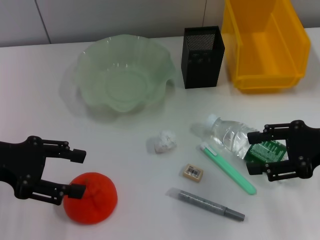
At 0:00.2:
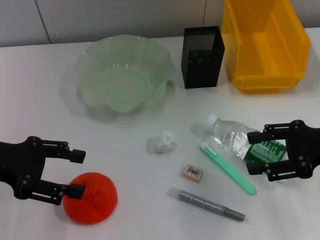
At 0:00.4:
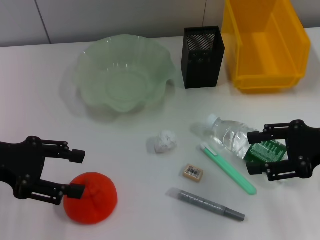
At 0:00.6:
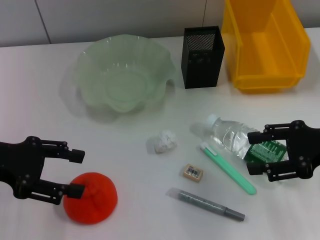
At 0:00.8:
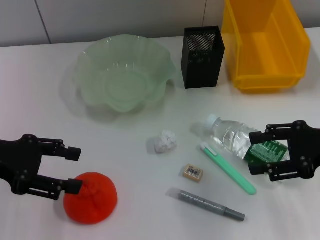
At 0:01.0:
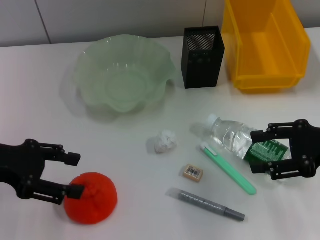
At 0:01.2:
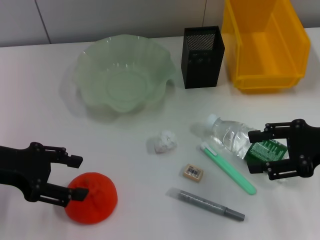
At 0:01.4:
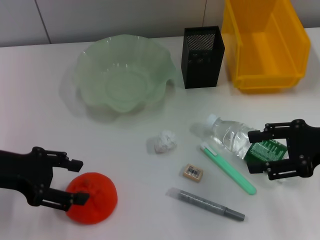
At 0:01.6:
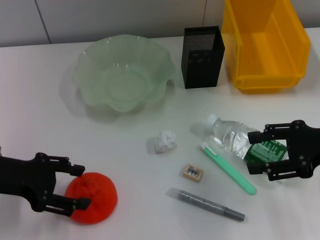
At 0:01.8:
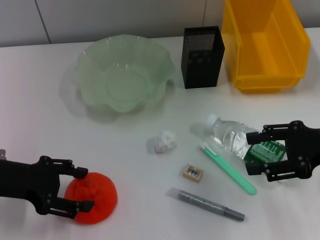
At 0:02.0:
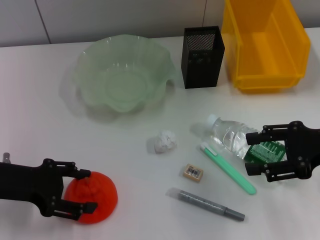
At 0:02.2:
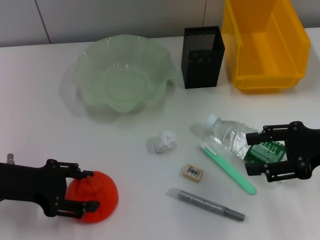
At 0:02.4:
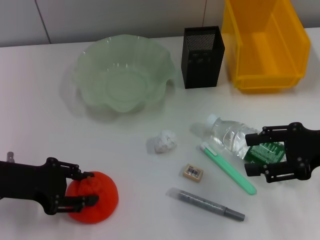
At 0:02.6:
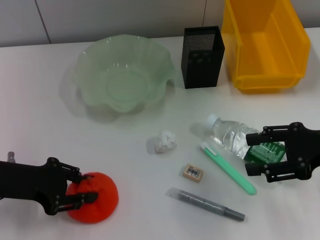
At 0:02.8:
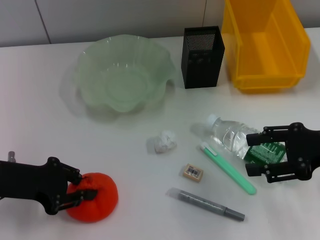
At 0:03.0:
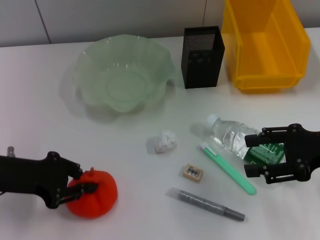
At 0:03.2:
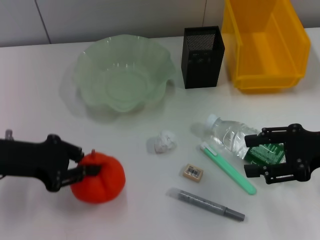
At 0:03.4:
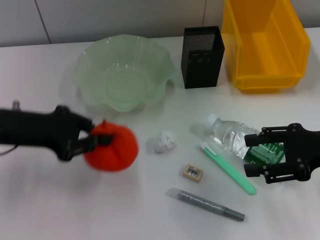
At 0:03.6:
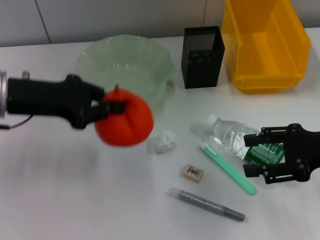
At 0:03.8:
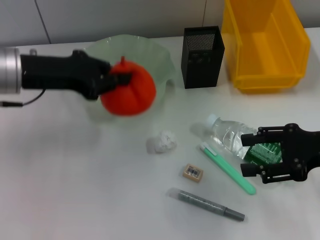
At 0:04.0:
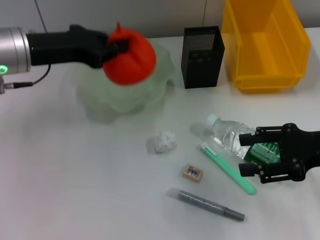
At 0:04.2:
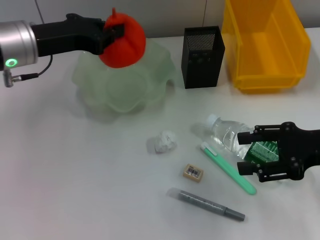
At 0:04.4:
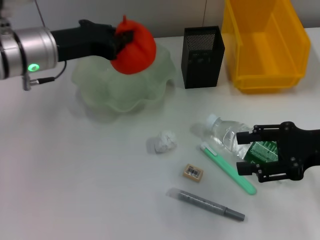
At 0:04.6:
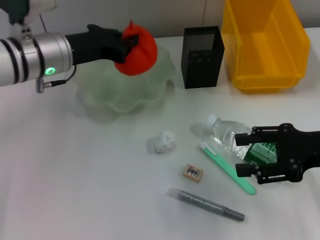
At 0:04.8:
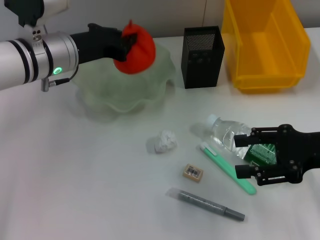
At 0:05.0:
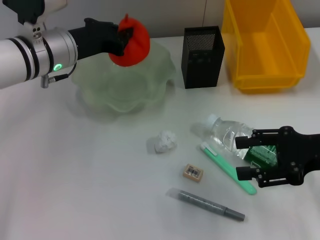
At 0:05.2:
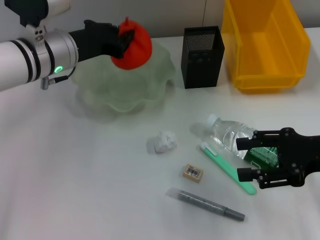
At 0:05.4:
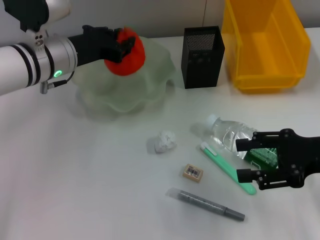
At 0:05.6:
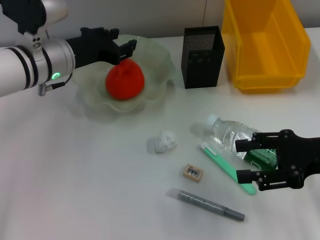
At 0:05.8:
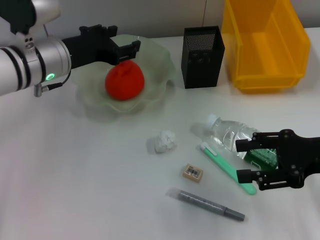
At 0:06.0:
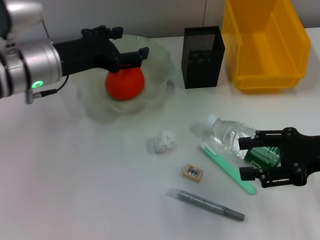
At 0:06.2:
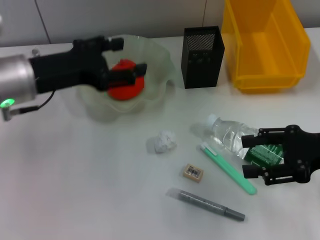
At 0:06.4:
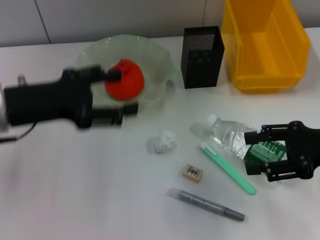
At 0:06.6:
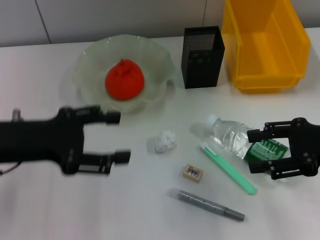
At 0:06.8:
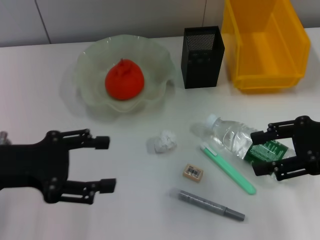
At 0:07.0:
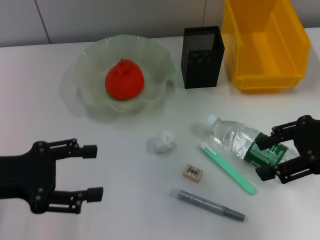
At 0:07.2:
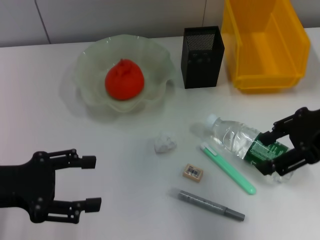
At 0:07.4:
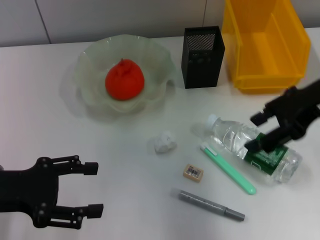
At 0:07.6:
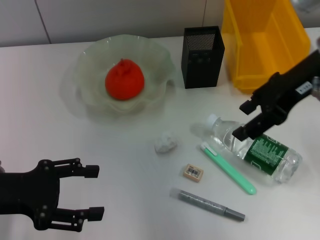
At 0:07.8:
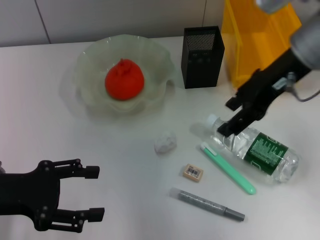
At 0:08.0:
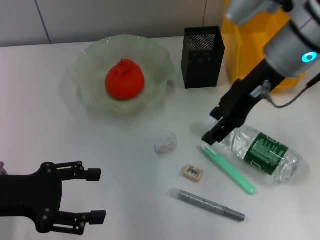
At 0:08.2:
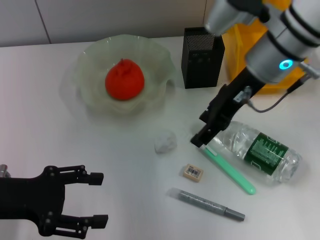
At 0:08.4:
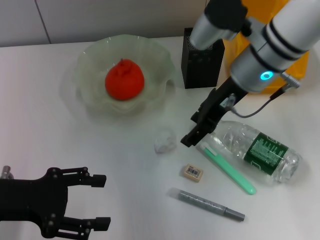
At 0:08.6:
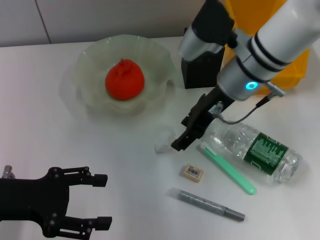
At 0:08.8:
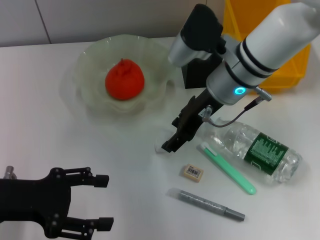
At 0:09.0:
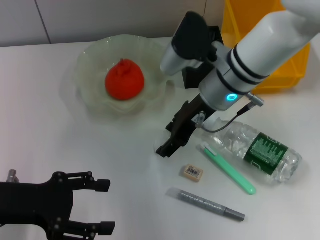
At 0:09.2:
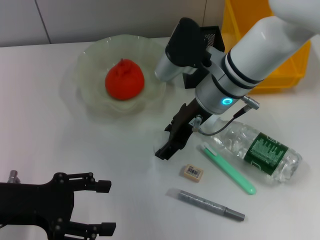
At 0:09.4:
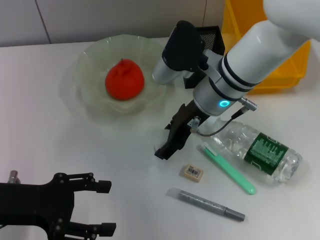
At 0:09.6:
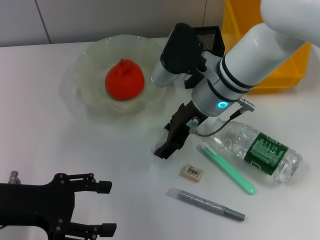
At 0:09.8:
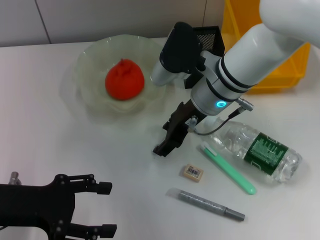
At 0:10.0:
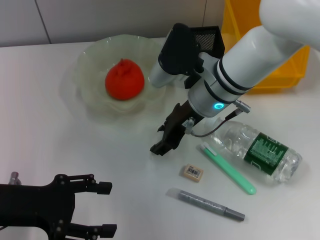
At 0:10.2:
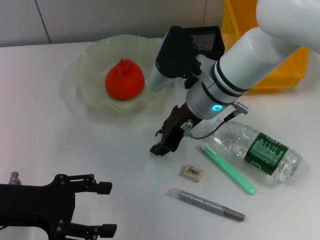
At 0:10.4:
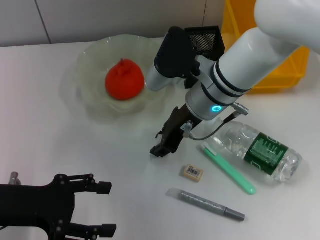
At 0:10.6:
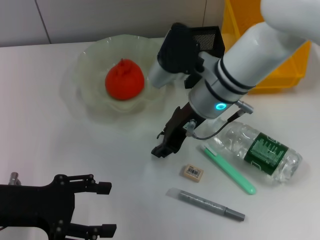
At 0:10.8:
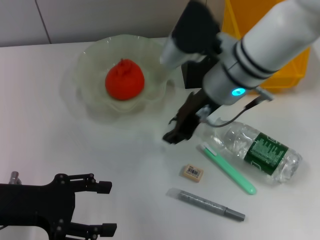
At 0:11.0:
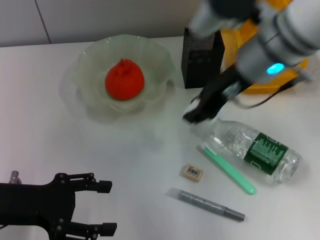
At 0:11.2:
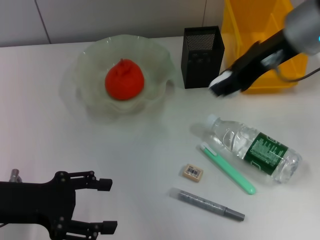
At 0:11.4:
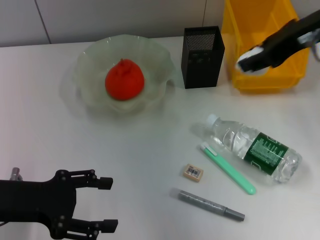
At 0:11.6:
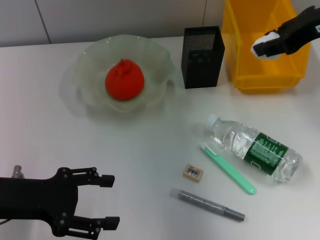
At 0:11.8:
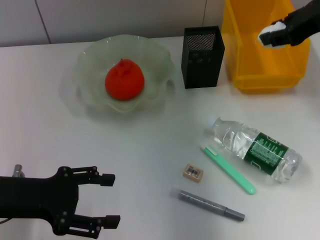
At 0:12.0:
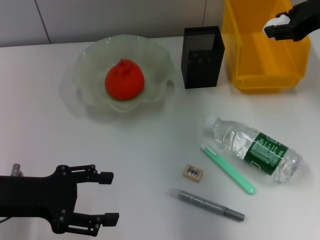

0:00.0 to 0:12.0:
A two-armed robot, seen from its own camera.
Step, 0:00.0 to 0:02.8: Grab the orange with the left hand.
Step, 0:03.0 to 0:05.4: Place the orange into the fruit bowl with the left hand.
Step, 0:05.8 to 0:10.4: Grab the paper ball with the right hand.
0:00.0 to 0:01.6: The grippers stay close to where they were, moving slightly.
0:01.6 to 0:03.0: The left gripper closes.
0:03.0 to 0:04.4: The left gripper travels forward, to the right and upward by about 15 cm.
0:04.4 to 0:06.0: The left gripper opens.
0:06.0 to 0:07.6: The left gripper heads backward and to the left, covering about 15 cm, while the right gripper goes approximately 20 cm upward, to the left and forward.
0:07.6 to 0:09.0: The right gripper travels to the left and downward by some 15 cm.
0:09.0 to 0:10.4: The right gripper closes its fingers.
0:10.4 to 0:12.0: The right gripper is displaced to the right and upward by approximately 25 cm.

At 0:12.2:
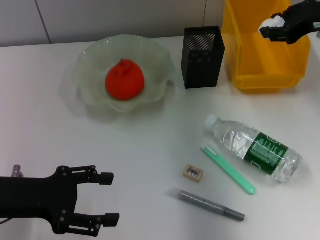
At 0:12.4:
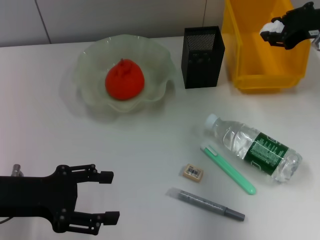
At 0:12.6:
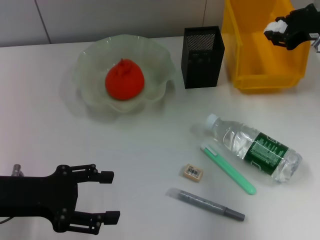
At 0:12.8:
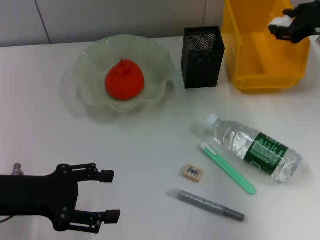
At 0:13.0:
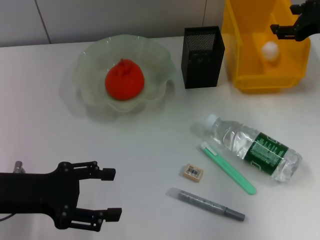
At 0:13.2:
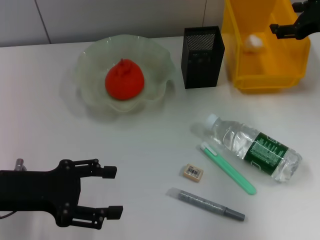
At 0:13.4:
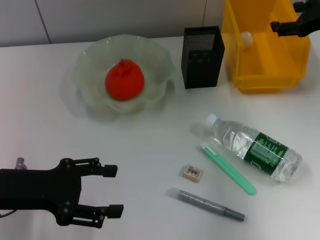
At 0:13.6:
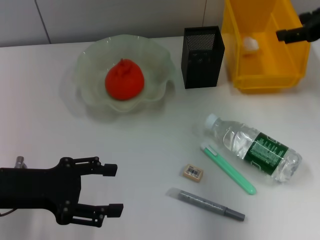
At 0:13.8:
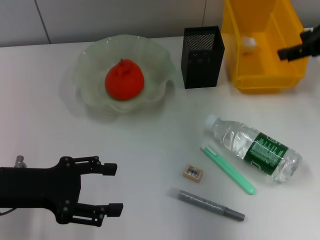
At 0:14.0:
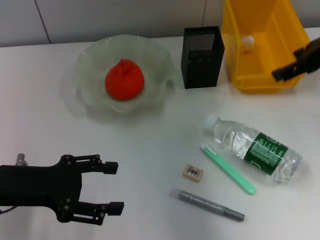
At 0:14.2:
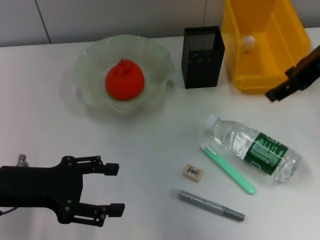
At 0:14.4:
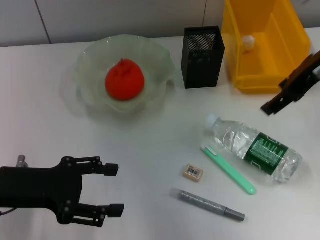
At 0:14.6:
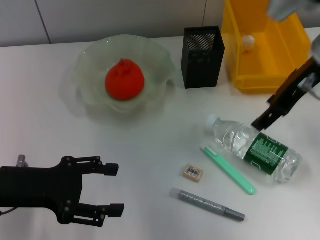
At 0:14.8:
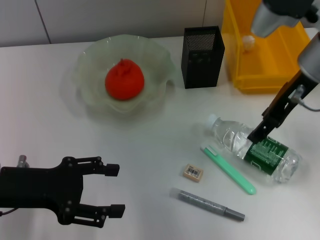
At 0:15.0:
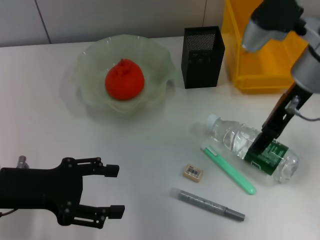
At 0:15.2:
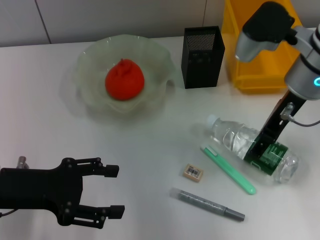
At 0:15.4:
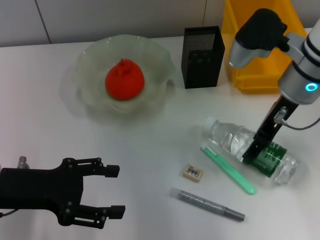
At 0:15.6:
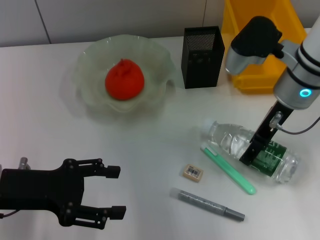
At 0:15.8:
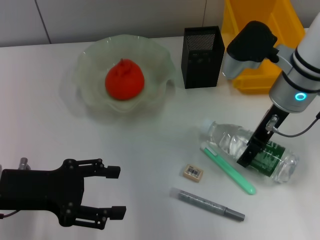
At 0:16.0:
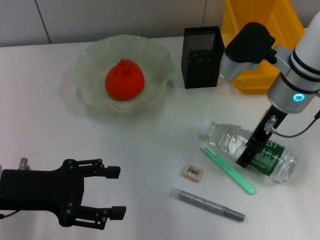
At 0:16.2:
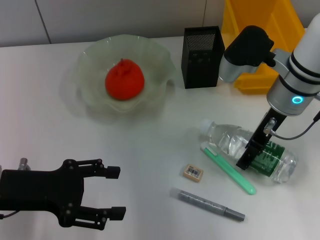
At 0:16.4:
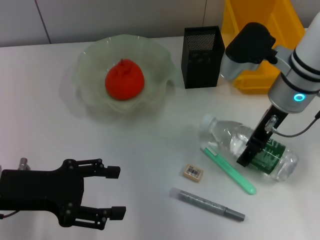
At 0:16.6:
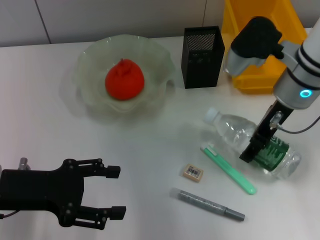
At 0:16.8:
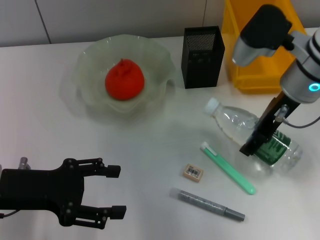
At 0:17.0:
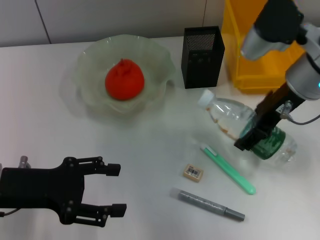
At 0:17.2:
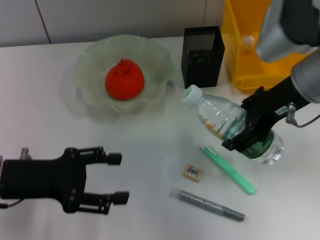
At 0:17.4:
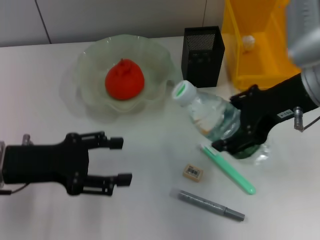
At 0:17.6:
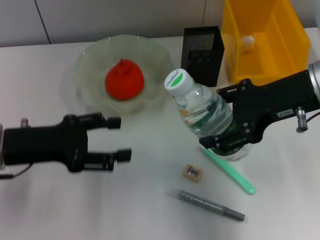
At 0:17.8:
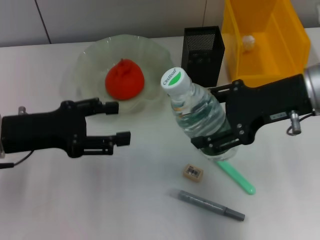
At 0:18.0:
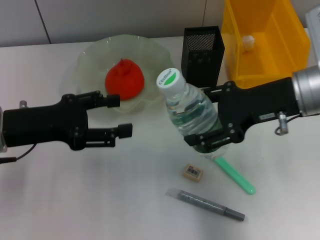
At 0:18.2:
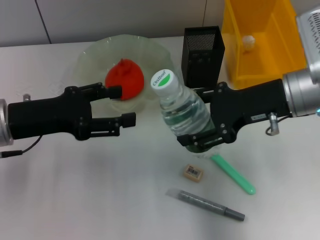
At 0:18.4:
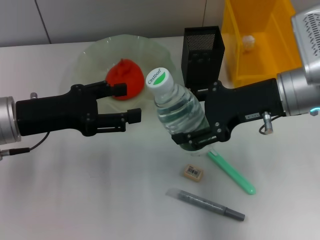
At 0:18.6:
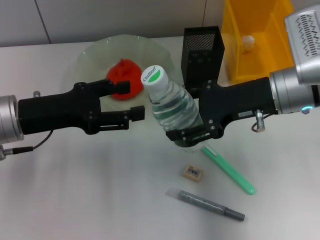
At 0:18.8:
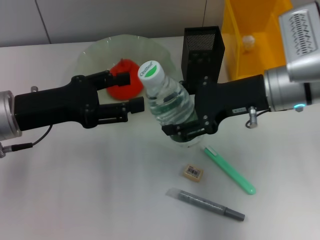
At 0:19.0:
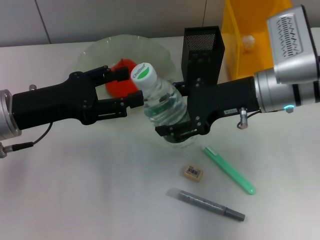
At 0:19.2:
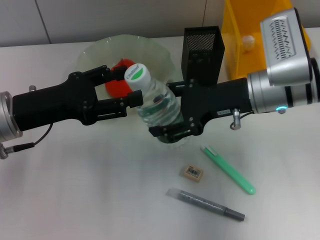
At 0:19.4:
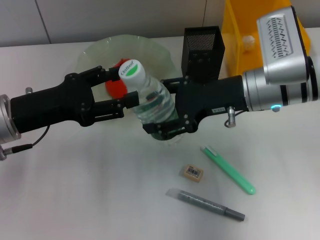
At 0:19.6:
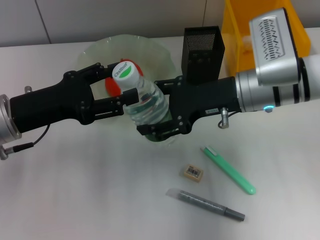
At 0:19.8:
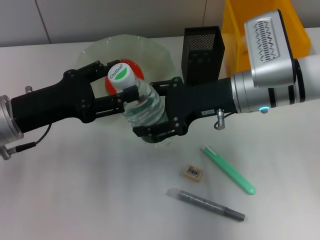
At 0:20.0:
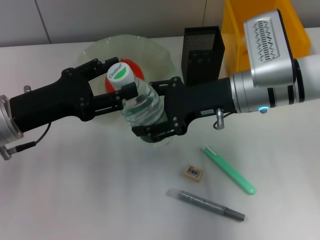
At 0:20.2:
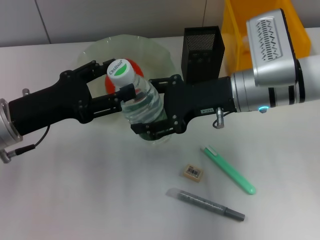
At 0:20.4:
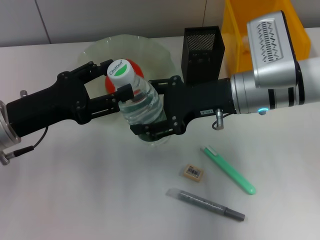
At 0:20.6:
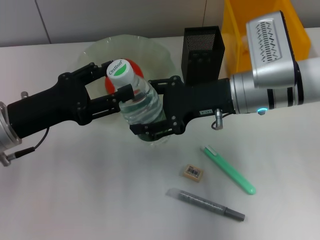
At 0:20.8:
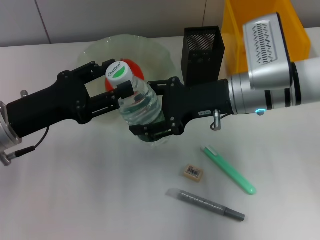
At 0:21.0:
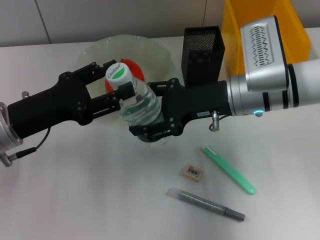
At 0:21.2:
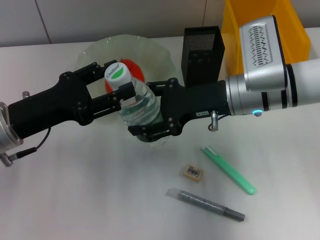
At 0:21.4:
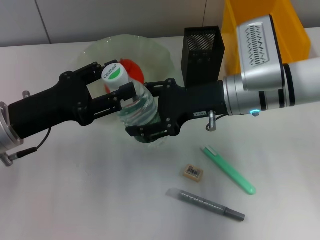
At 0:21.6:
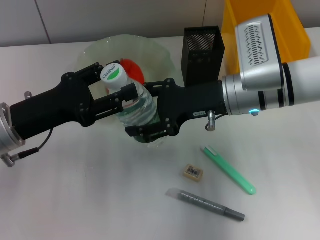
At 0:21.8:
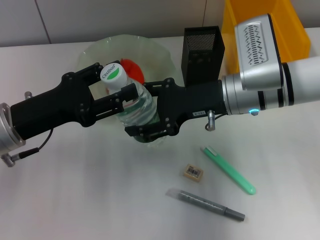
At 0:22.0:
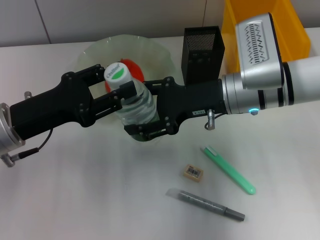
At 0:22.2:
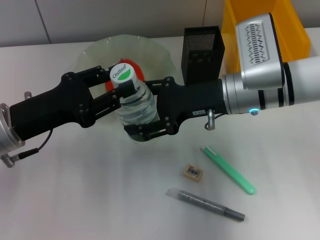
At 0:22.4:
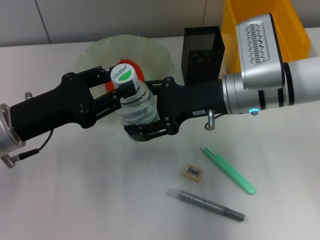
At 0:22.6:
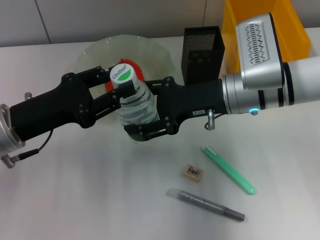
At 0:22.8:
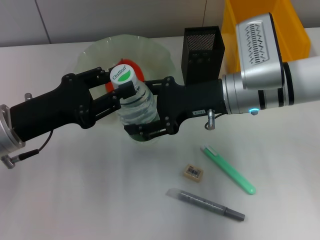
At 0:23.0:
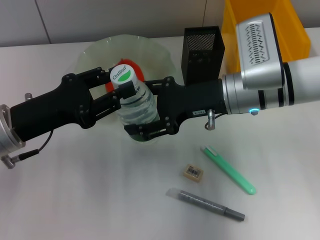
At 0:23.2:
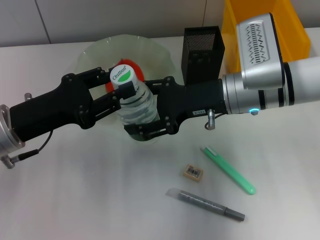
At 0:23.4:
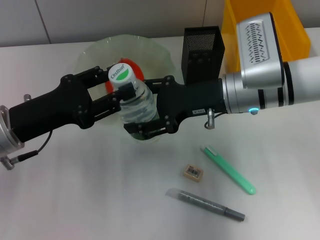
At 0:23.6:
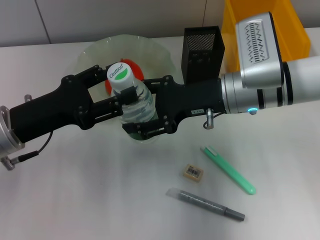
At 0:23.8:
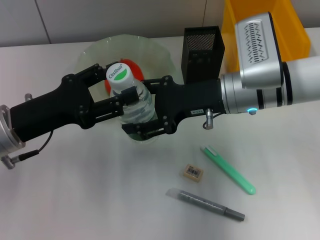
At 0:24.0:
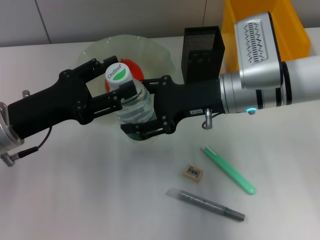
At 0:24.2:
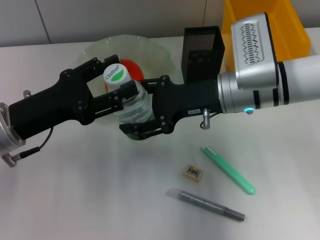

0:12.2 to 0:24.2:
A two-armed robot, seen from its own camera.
Step, 0:13.4 to 0:16.2: Grab the water bottle with the right hand.
0:12.2 to 0:13.8: The right gripper opens up.
0:13.8 to 0:15.2: The right gripper travels to the left and downward by some 15 cm.
0:15.2 to 0:16.6: The grippers move only a little.
0:16.6 to 0:18.2: The left gripper heads forward, covering some 5 cm.
0:18.2 to 0:19.8: The right gripper moves to the left, some 5 cm.
0:19.8 to 0:21.2: Both grippers stay put.
0:21.2 to 0:22.6: The left gripper closes its fingers.
0:22.6 to 0:24.2: The left gripper opens.
